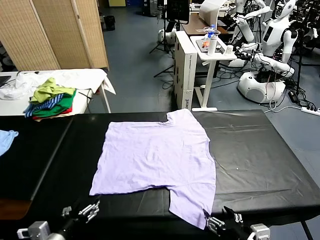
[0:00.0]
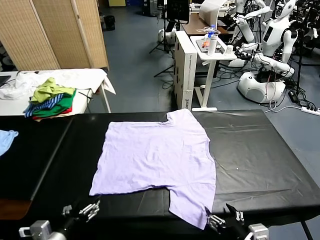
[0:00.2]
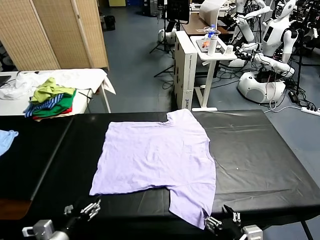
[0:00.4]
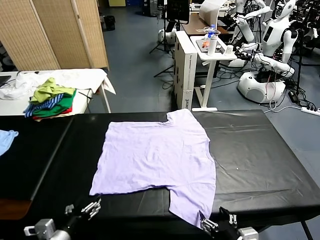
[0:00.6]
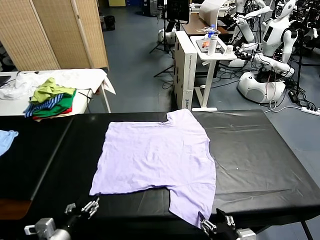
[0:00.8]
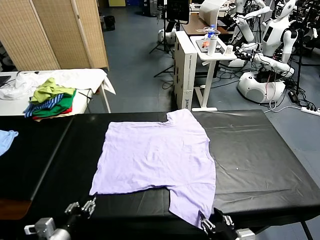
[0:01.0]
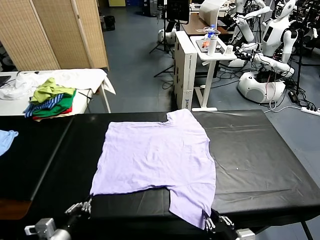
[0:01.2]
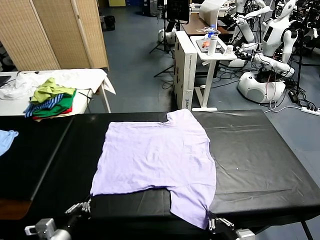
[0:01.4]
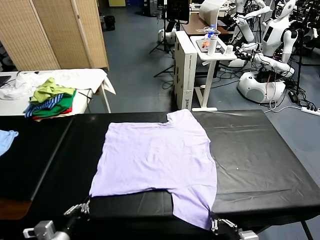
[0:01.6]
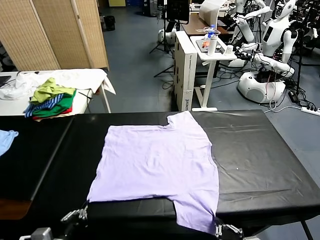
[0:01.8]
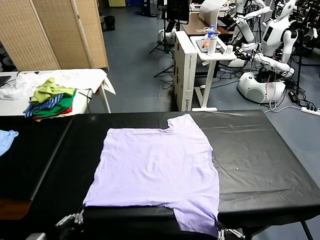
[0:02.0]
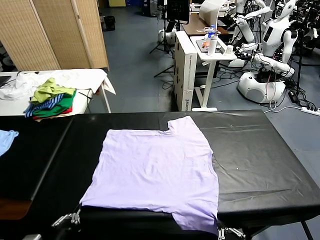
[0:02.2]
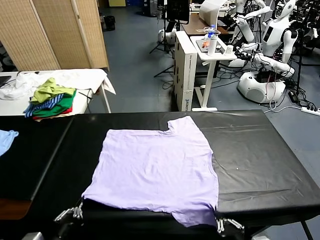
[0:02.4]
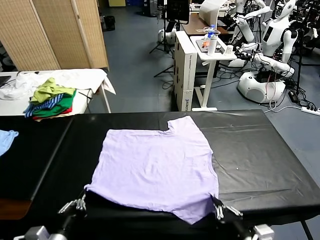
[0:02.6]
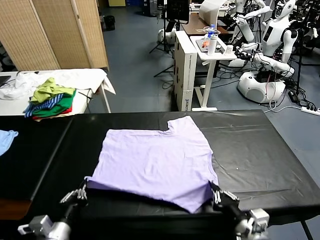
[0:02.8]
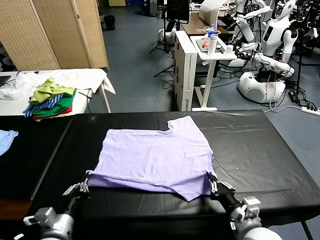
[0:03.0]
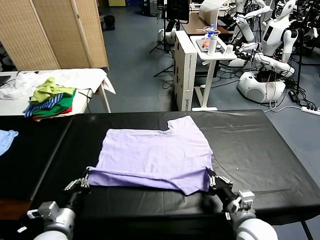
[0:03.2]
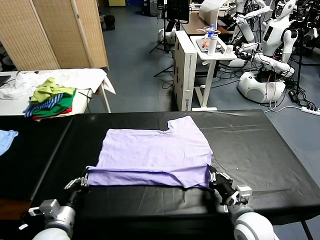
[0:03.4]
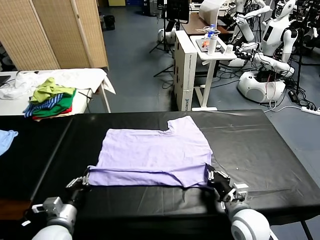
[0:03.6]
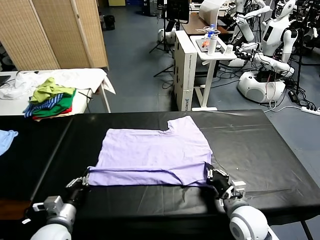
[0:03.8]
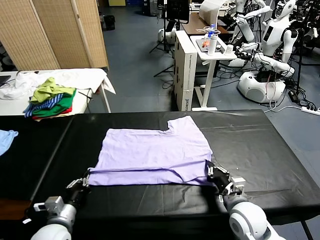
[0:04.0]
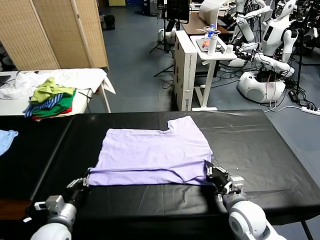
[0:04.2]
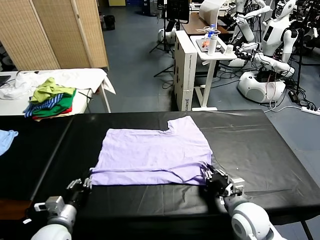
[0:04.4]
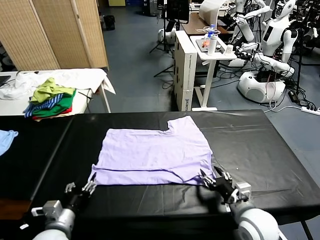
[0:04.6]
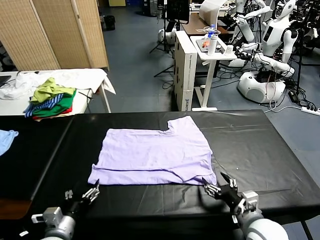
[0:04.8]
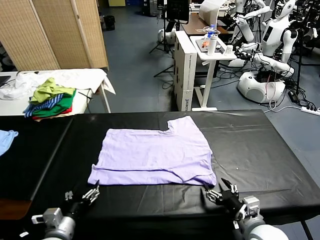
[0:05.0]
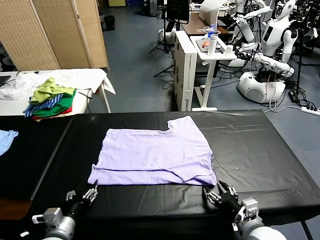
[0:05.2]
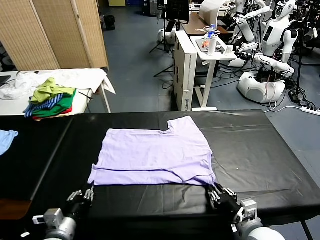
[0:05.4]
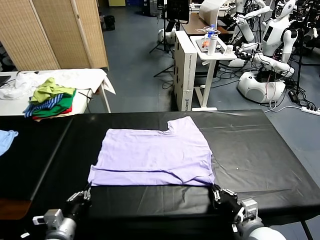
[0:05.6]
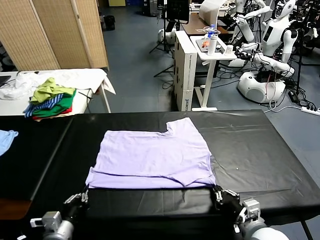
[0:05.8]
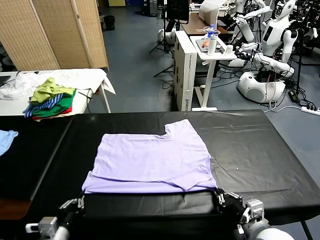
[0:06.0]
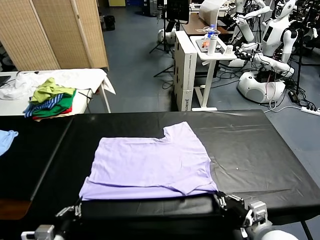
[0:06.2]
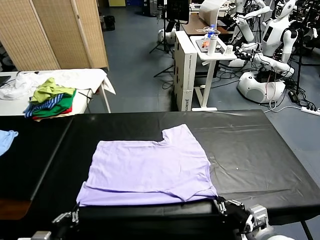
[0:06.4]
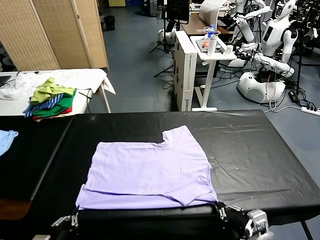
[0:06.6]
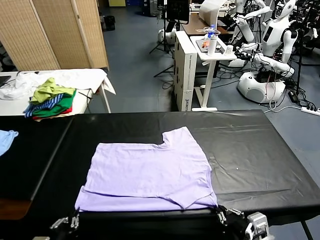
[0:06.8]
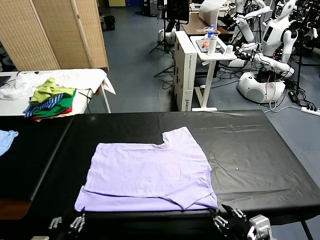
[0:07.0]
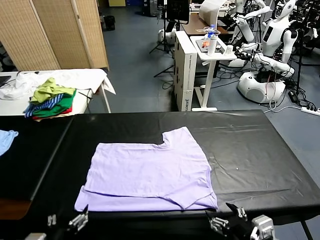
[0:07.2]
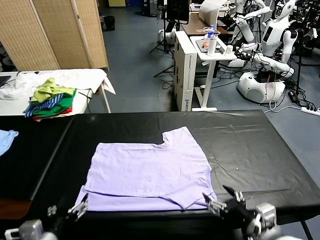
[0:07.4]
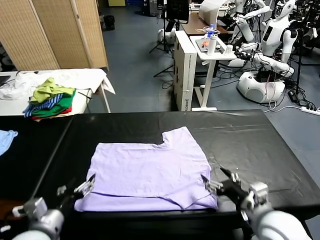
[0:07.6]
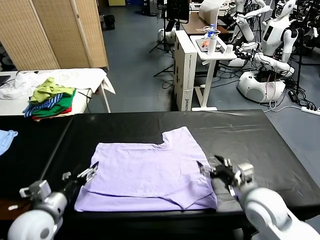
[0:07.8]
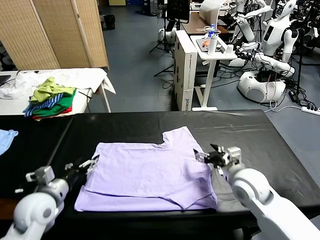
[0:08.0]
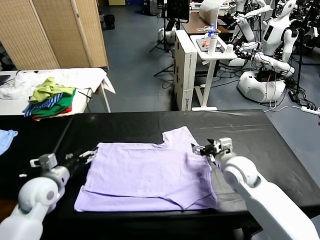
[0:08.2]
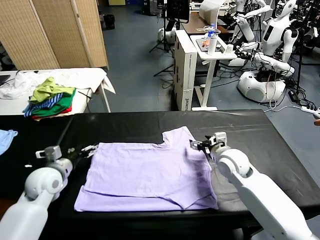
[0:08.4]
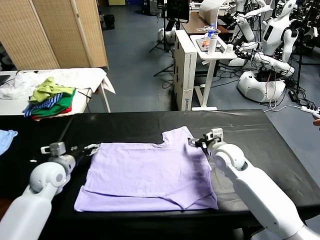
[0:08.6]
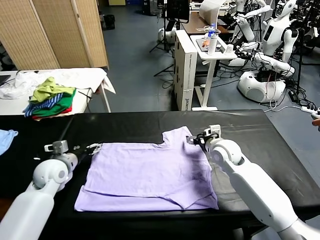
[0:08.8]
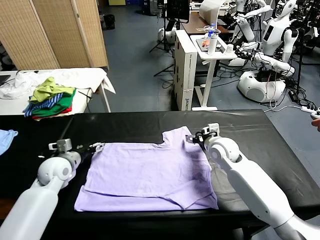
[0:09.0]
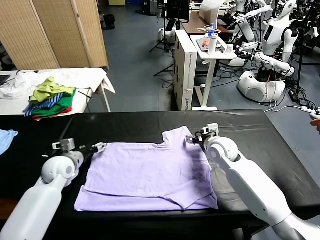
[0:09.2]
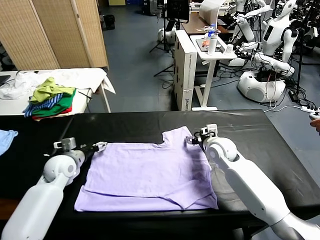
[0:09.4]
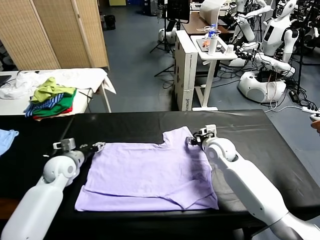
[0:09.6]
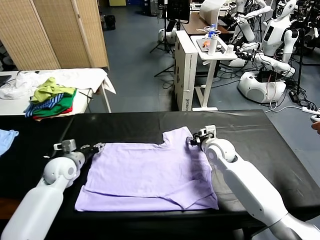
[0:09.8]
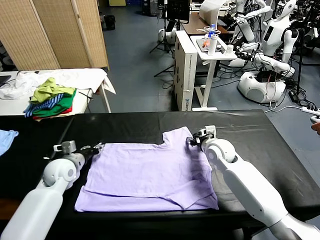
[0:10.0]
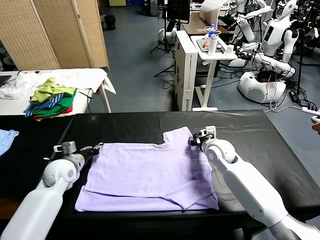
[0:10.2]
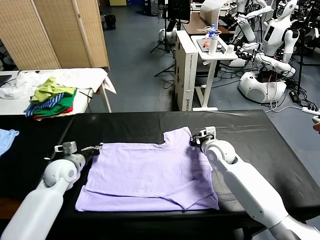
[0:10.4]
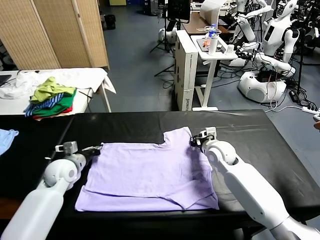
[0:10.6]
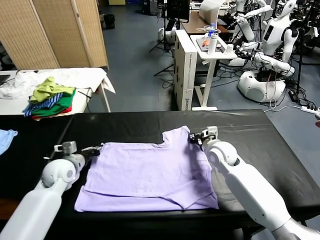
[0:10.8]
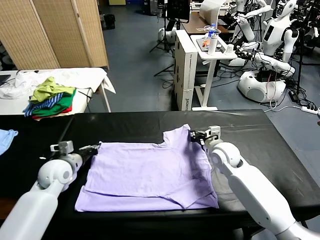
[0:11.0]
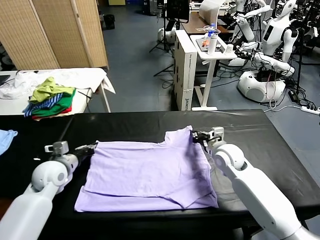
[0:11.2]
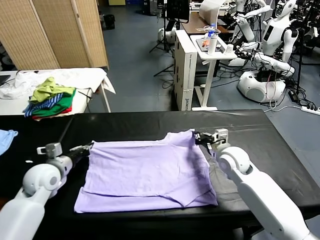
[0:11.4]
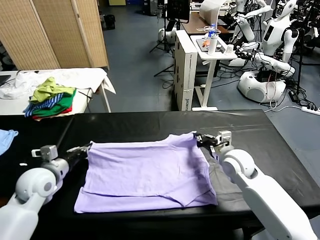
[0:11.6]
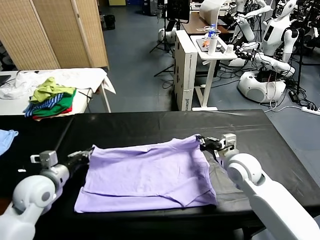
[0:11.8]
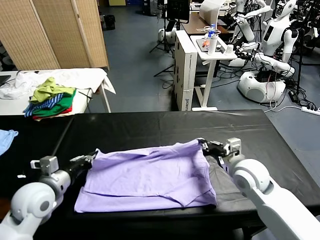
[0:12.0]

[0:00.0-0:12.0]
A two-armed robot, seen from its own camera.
Task of the whole recording: fold and organize the clothes.
Step, 0:00.0 to 0:01.6: use both grippers simultaneously to clamp the lower edge of the clothing fabric.
Step, 0:01.8 to 0:04.6: use both grippers to drag the lower edge of the fabric forward and fold it over the upper edge.
Step, 0:04.8 to 0:07.0: Drag the clothes downward with both gripper.
Step, 0:07.2 to 0:10.6: use both grippers simultaneously to clamp the upper edge of the clothing fabric.
0:01.6 to 0:03.0: The left gripper moves forward, some 5 cm; the right gripper is displaced forward by about 15 cm.
0:03.0 to 0:04.4: The right gripper opens up, while the left gripper opens its fingers.
0:04.4 to 0:06.0: The grippers both shift backward by some 5 cm. The left gripper closes up. The right gripper closes up.
0:06.0 to 0:07.6: The left gripper travels upward and forward by roughly 10 cm, and opens up. Meanwhile the right gripper heads forward, covering approximately 10 cm, and opens.
0:07.6 to 0:09.0: Both grippers travel together forward, some 20 cm.
0:09.0 to 0:10.4: The right gripper closes. The left gripper closes up.
0:10.4 to 0:12.0: The two grippers go roughly 15 cm backward and upward.

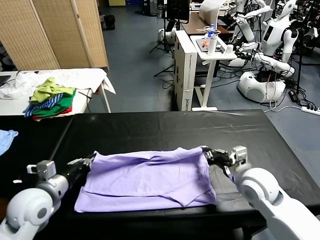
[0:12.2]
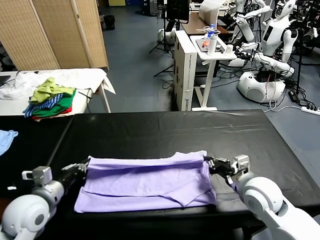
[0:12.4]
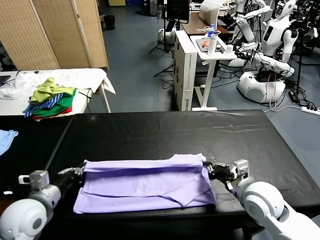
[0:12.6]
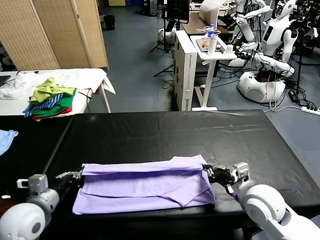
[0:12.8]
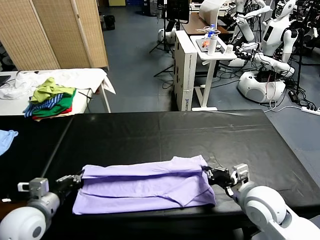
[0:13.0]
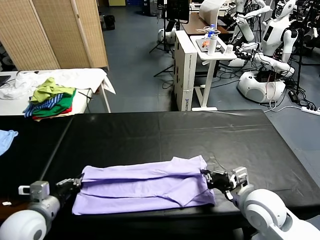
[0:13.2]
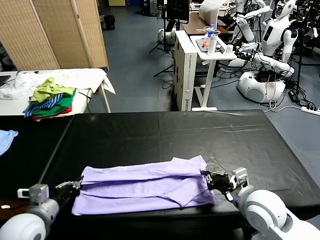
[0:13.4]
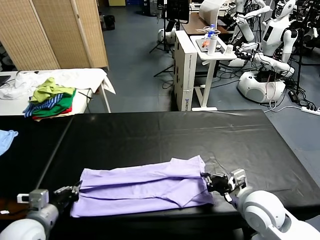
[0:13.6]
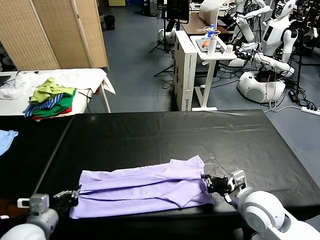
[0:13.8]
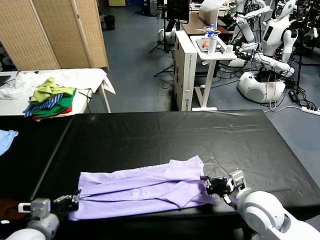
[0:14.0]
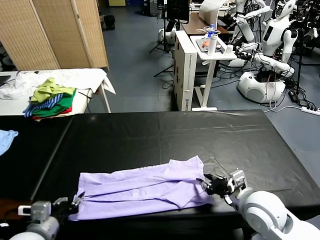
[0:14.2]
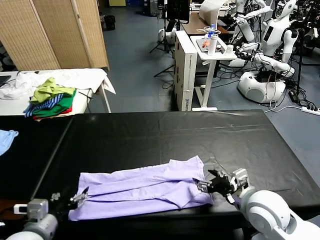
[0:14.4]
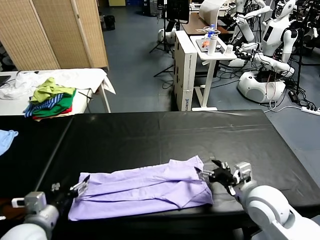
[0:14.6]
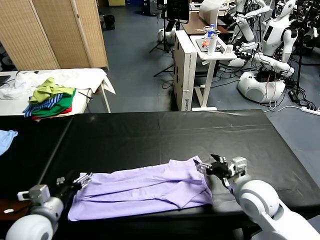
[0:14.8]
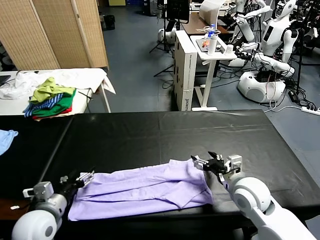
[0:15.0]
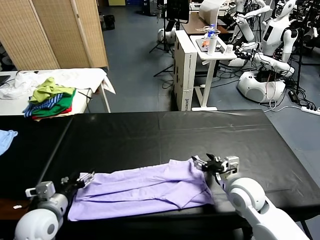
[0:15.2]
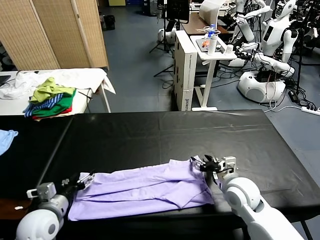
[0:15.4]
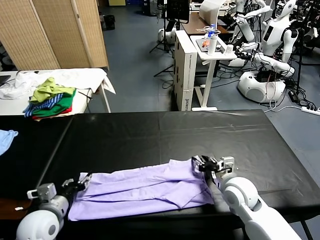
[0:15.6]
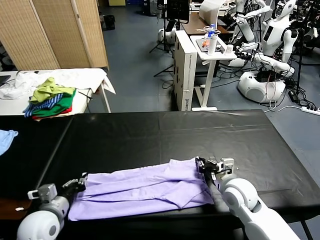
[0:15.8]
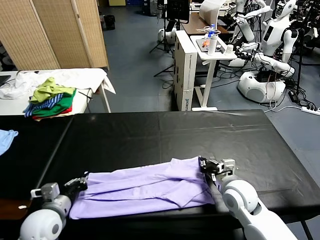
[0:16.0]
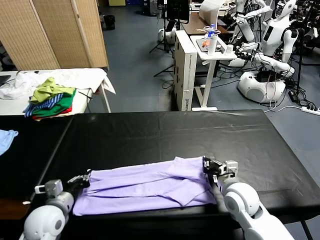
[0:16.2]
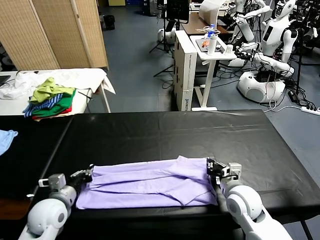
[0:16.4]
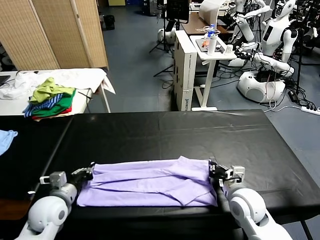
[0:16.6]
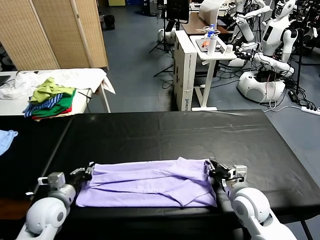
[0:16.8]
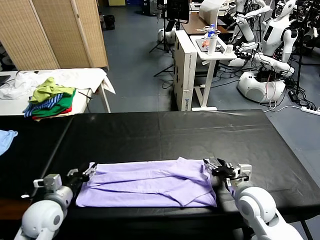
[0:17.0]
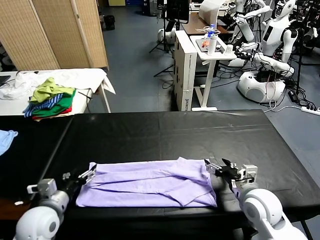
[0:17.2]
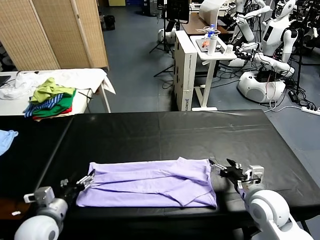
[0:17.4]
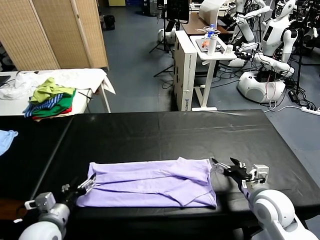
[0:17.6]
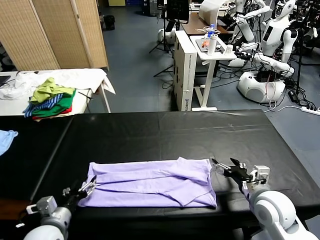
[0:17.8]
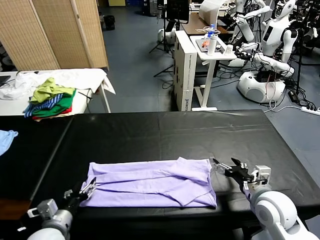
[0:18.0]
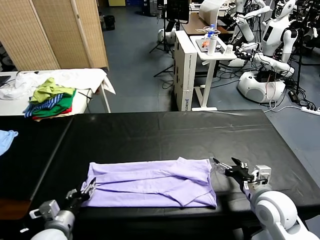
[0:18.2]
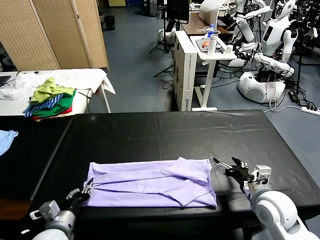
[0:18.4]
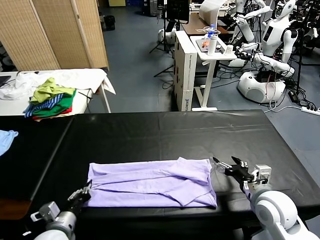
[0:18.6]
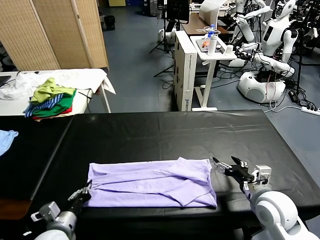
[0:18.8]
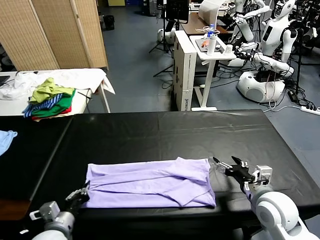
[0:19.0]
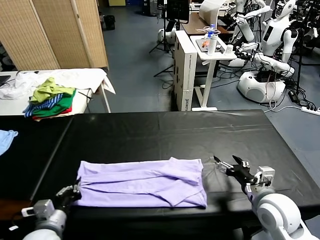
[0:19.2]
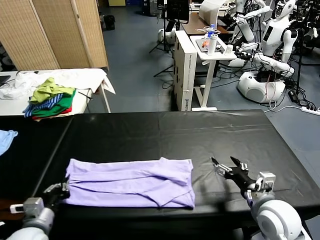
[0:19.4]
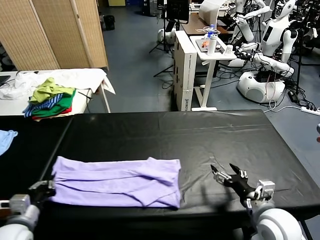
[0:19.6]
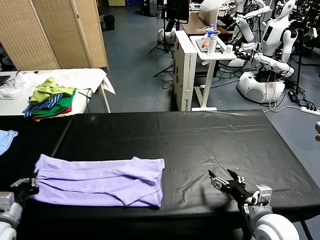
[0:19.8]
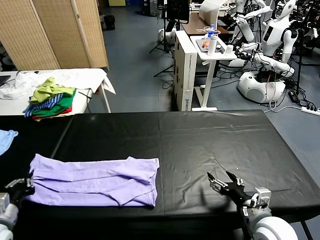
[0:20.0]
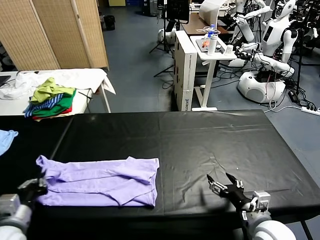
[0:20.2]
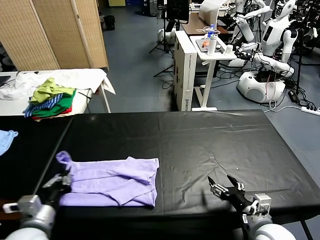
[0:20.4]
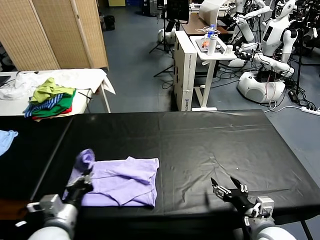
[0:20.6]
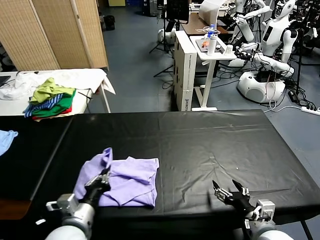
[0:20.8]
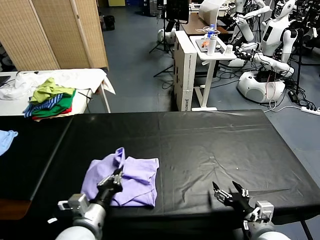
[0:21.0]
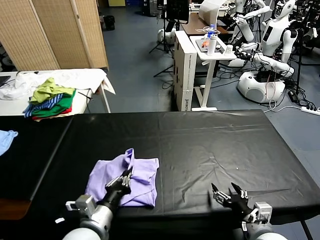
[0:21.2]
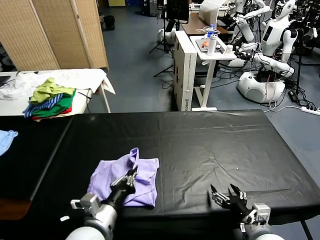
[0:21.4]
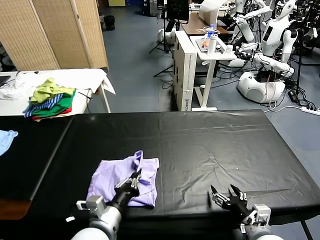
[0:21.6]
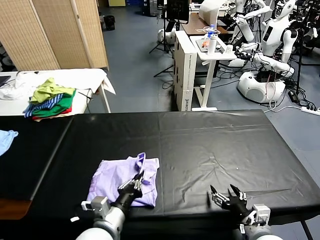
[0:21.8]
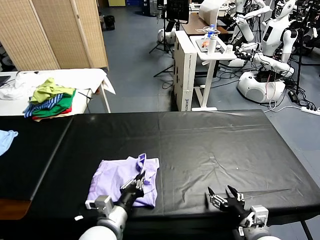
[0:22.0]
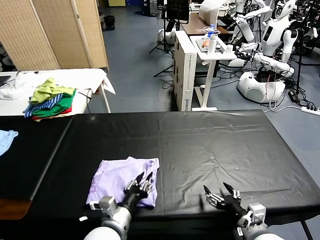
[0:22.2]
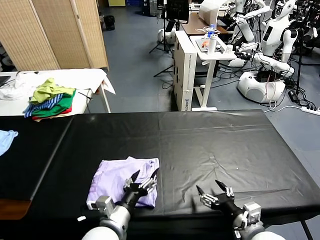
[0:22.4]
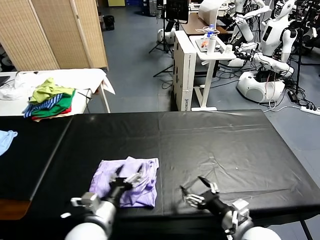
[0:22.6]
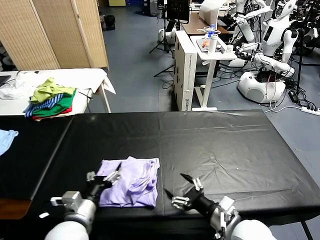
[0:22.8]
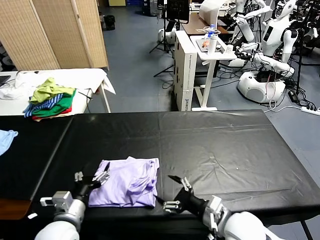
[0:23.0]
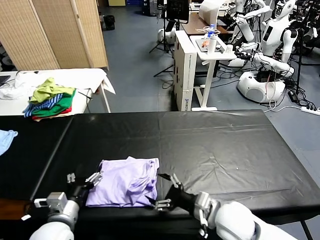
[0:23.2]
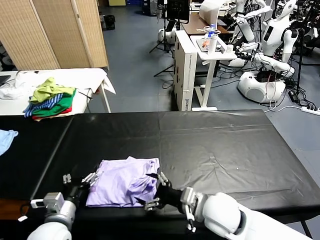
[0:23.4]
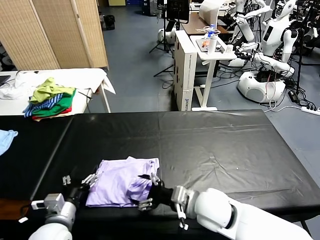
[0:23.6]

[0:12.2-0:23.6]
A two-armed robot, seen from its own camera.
Task of the whole recording: fold and organize the clothes.
Step, 0:12.2 to 0:14.4: use both grippers to drag the upper edge of the fabric backward and fold it over the lower edge.
Step, 0:14.6 to 0:18.8: use the left gripper to clamp the left edge of the fabric.
Step, 0:19.2 to 0:22.4: use the left gripper to drag the left edge of the fabric to the left and folds it over the right edge.
0:12.2 to 0:13.6: The left gripper heads backward, covering about 5 cm.
0:13.6 to 0:15.0: The left gripper opens. Meanwhile the right gripper shifts some 5 cm forward, and opens.
0:15.0 to 0:16.4: The right gripper closes its fingers; the left gripper closes.
0:16.4 to 0:17.8: The left gripper goes some 10 cm backward, and opens its fingers. The right gripper shifts approximately 5 cm to the right, and opens its fingers.
0:17.8 to 0:19.4: The left gripper closes.
0:19.4 to 0:20.8: The right gripper moves backward, approximately 5 cm. The left gripper is displaced to the right by roughly 15 cm.
0:20.8 to 0:22.2: The left gripper shifts about 10 cm to the right, and opens up.
0:22.2 to 0:23.6: The right gripper moves to the left and forward, about 15 cm; the left gripper is displaced to the left by roughly 15 cm, and opens up.
